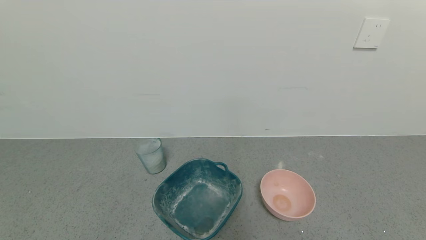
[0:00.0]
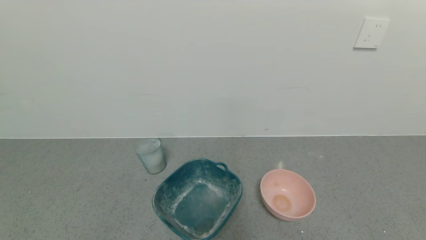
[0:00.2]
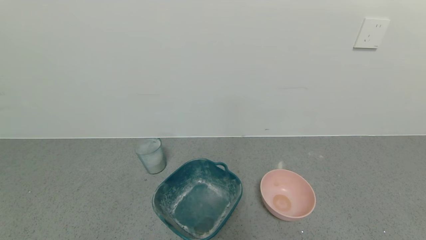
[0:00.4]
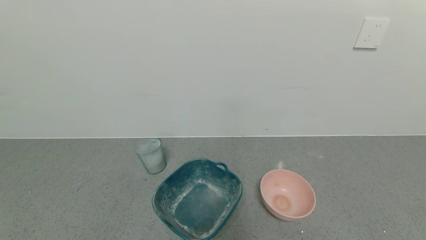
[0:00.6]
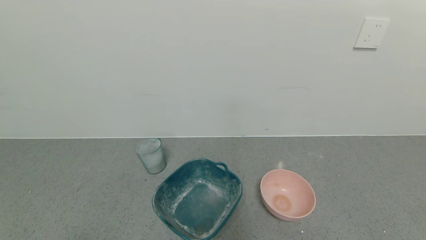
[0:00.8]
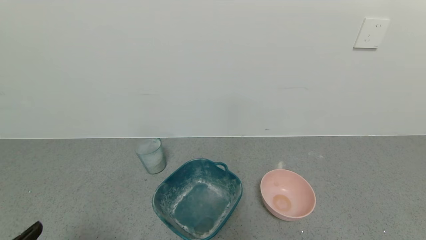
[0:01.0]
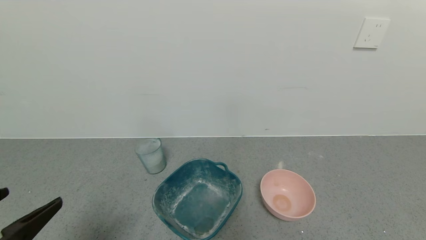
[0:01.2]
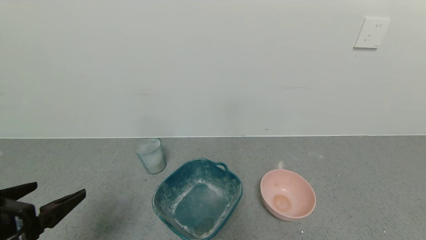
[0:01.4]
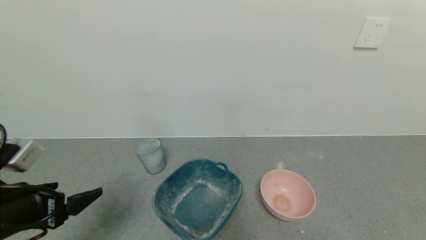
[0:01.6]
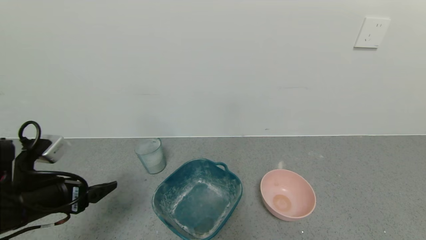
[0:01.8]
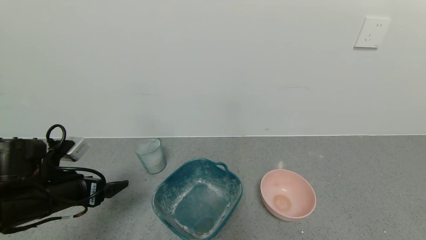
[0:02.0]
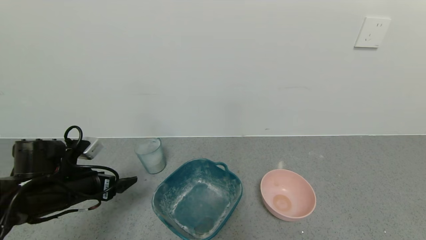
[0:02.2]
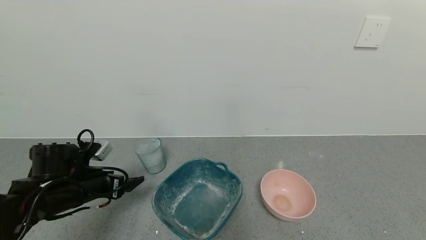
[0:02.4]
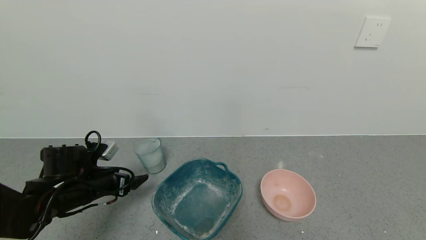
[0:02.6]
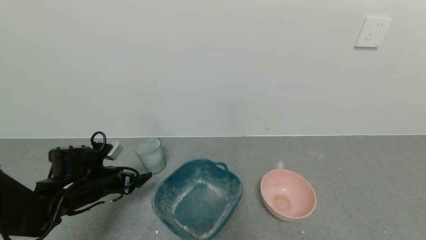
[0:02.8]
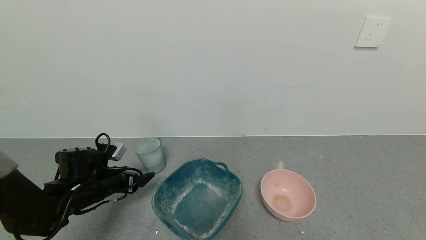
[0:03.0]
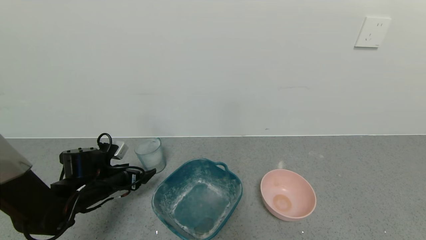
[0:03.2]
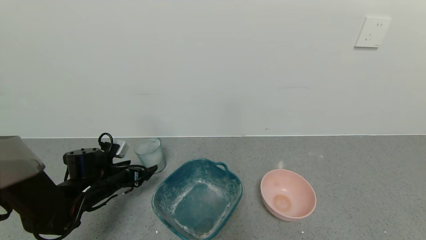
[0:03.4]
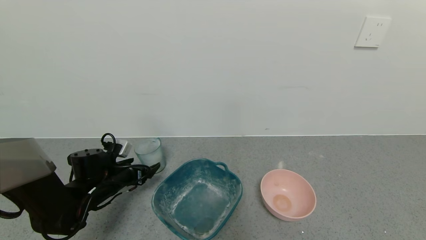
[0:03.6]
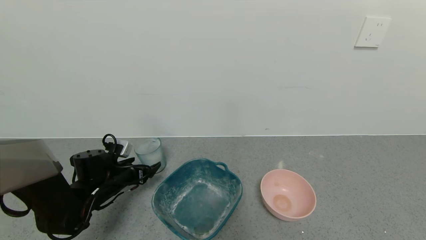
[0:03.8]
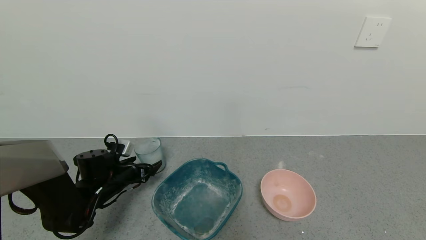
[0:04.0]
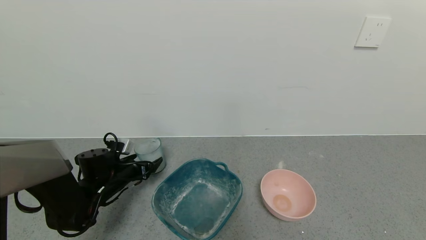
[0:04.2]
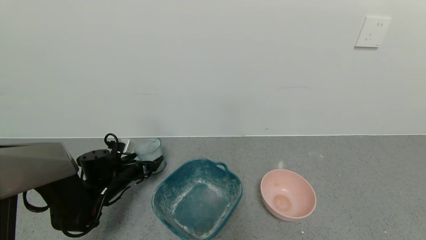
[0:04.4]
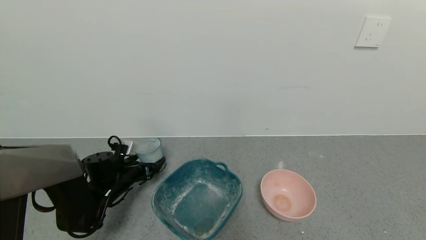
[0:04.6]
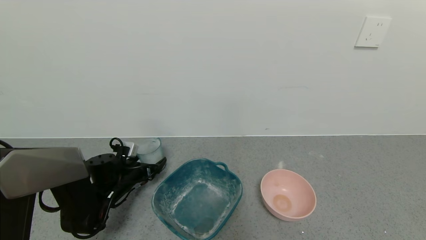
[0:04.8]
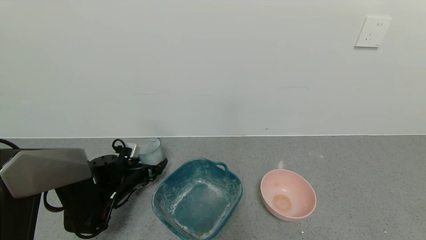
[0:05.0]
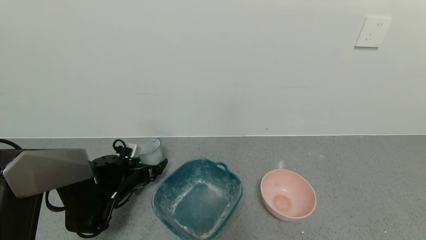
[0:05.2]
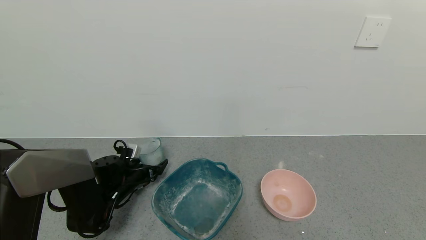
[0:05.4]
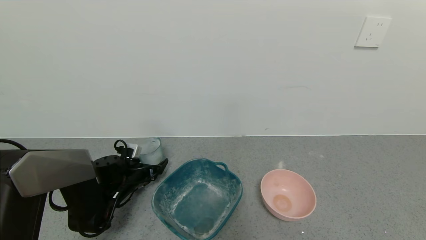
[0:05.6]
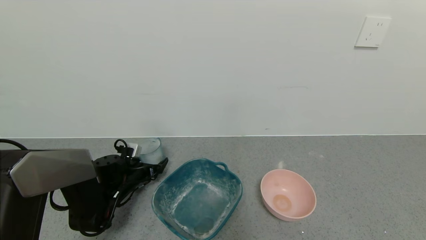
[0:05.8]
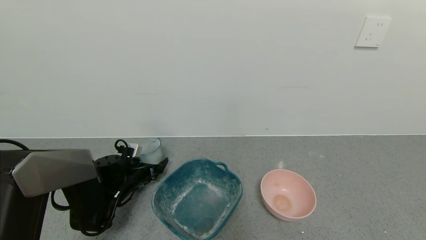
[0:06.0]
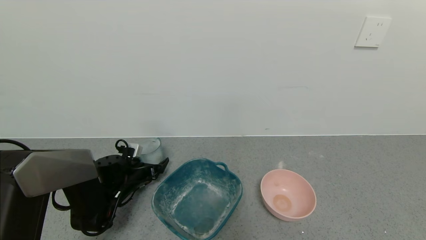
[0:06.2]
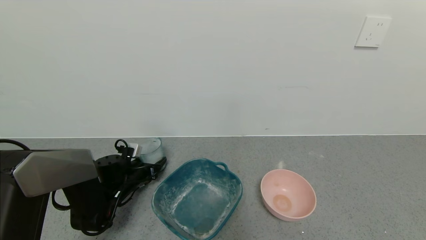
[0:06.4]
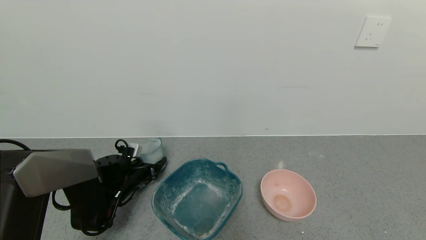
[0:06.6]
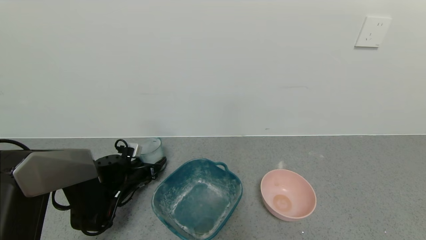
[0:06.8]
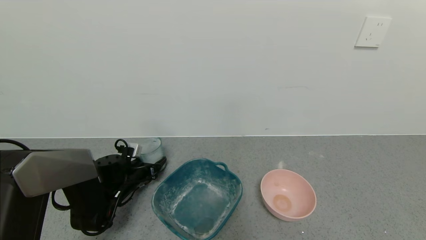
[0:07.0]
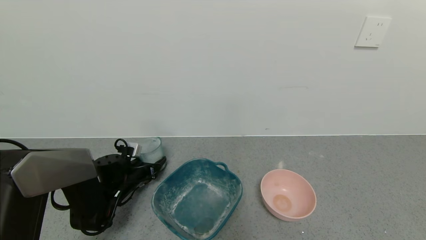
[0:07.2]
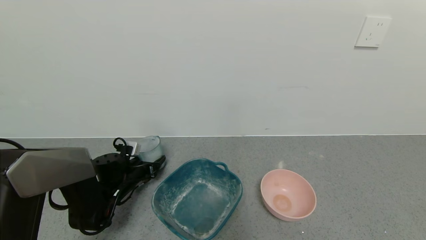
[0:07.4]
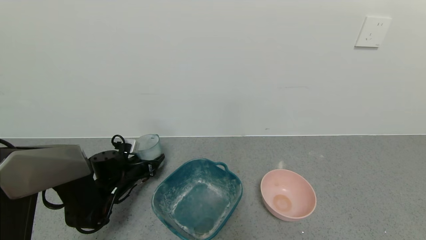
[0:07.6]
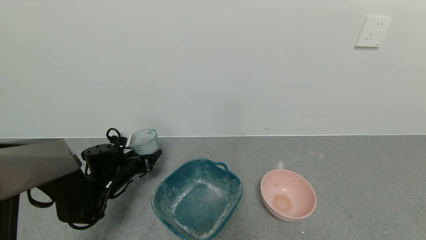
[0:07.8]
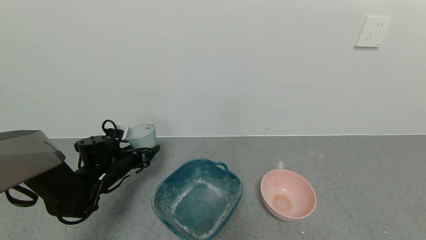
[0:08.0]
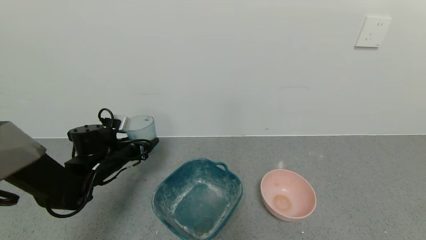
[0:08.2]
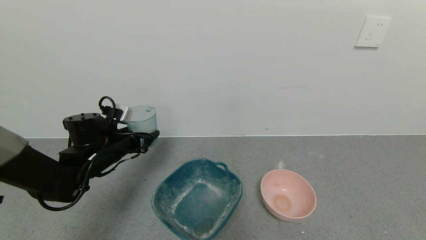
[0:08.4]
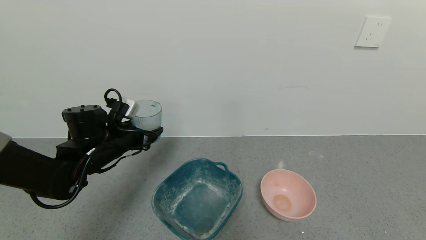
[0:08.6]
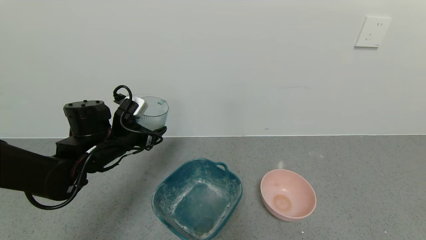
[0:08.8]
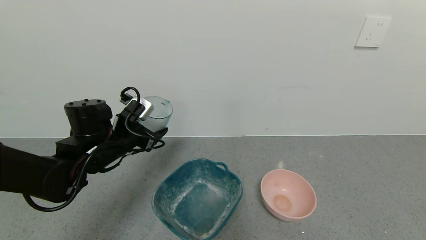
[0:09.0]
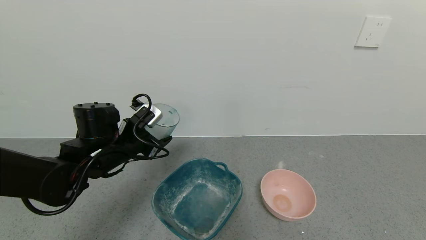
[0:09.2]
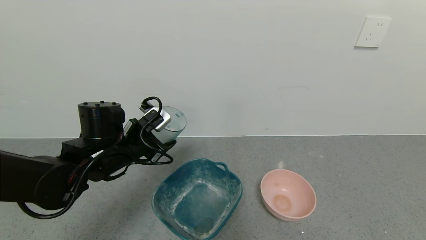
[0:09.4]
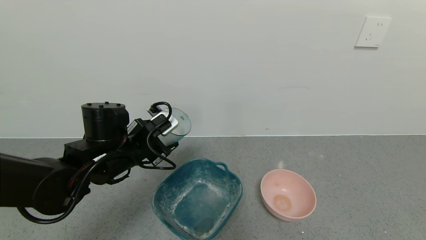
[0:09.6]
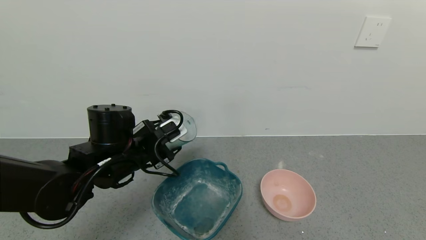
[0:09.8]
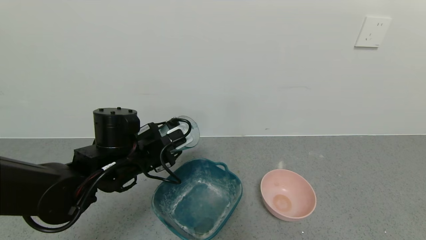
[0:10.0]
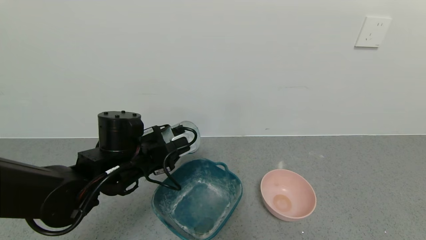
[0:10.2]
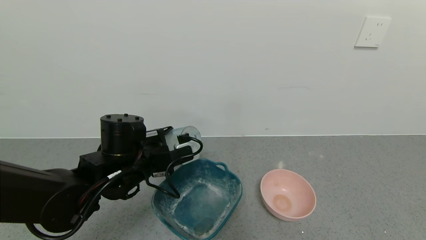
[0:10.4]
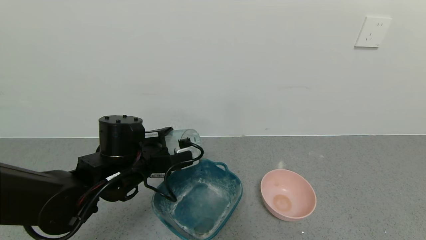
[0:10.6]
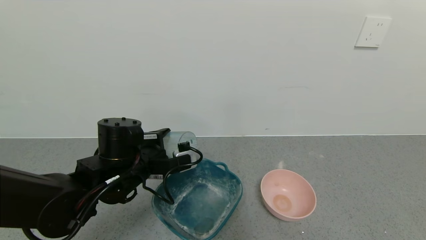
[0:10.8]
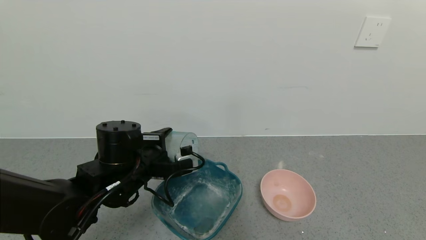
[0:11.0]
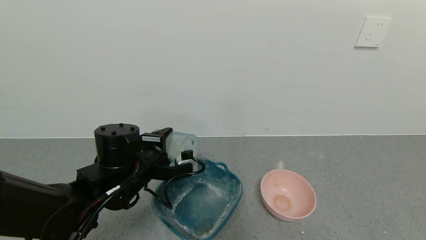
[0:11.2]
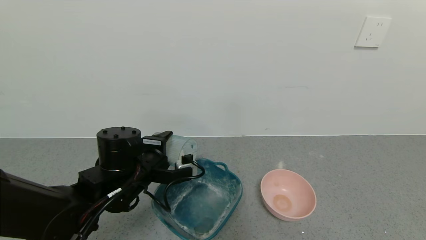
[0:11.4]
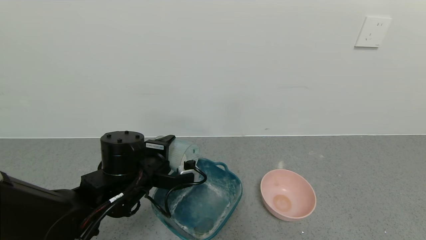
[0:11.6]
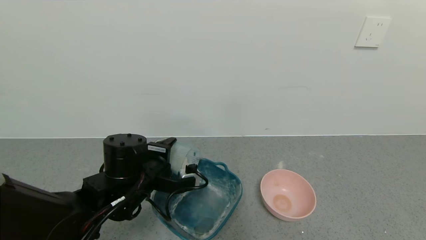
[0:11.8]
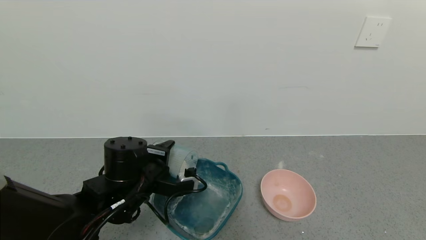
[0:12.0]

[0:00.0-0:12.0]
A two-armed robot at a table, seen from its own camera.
Task of the whole recording: use a gripper to pick up the cup and pour the powder into a bowl or tray.
Step, 0:00.0 to 0:06.4: Grasp the glass of powder with the left gripper.
0:00.0 to 0:01.6: The left gripper heads forward and upward, covering roughly 20 cm.
0:01.6 to 0:03.0: The left gripper is displaced forward and downward by some 20 cm.
0:03.0 to 0:04.4: The left gripper travels forward by some 5 cm.
0:04.4 to 0:06.0: The grippers make only small movements.
0:06.0 to 0:07.6: The left gripper closes up.
0:07.6 to 0:09.0: The left gripper travels upward by approximately 15 cm.
0:09.0 to 0:10.4: The left gripper is displaced to the right by approximately 5 cm.

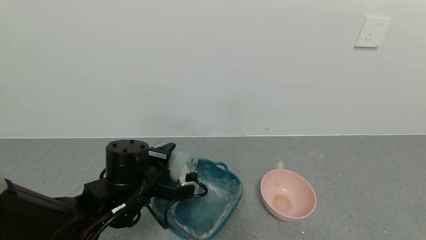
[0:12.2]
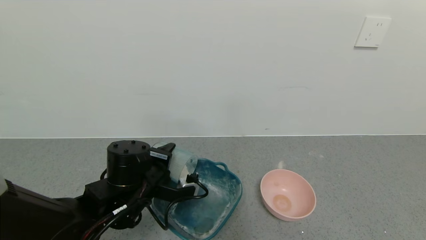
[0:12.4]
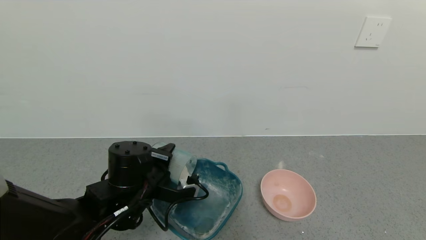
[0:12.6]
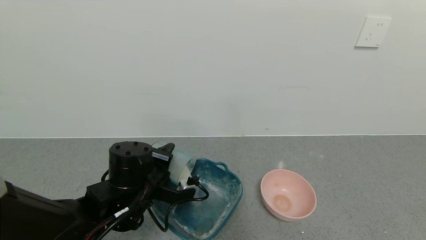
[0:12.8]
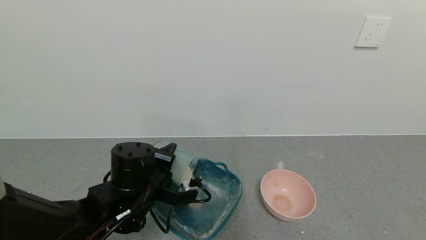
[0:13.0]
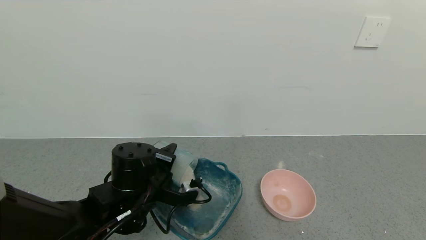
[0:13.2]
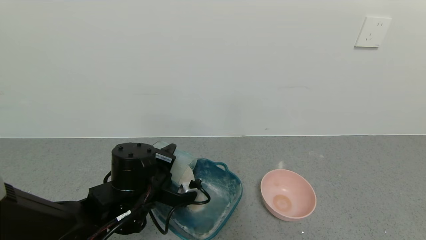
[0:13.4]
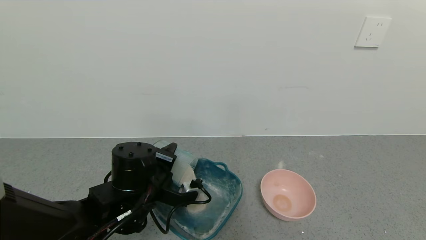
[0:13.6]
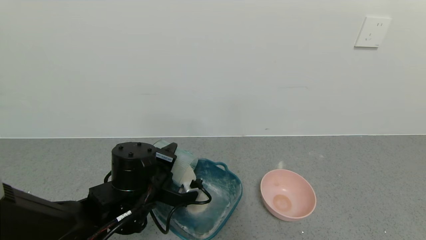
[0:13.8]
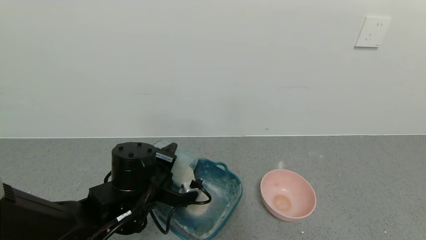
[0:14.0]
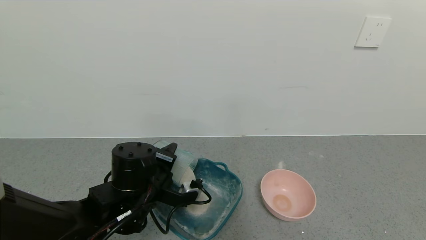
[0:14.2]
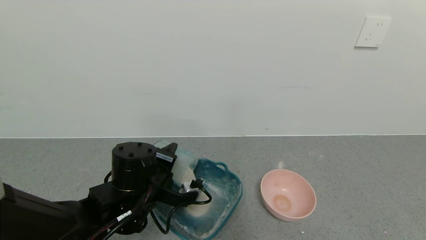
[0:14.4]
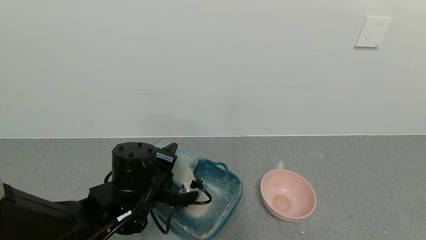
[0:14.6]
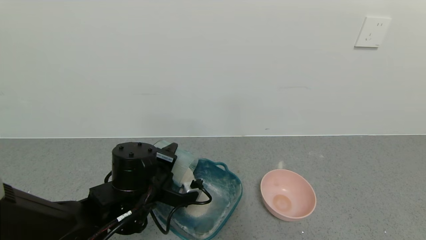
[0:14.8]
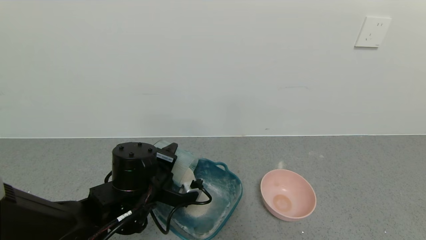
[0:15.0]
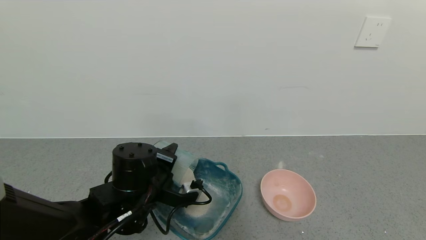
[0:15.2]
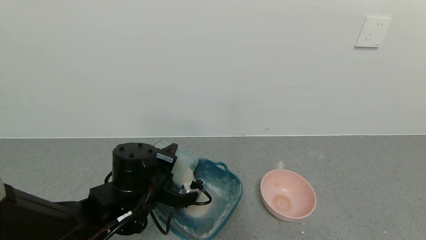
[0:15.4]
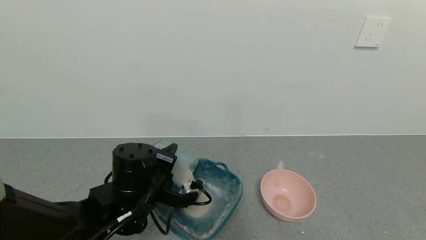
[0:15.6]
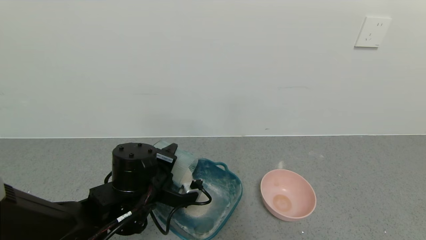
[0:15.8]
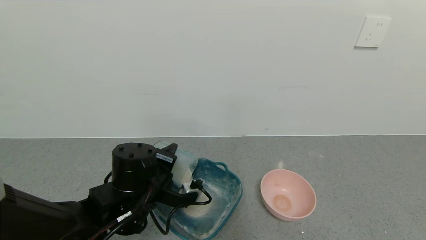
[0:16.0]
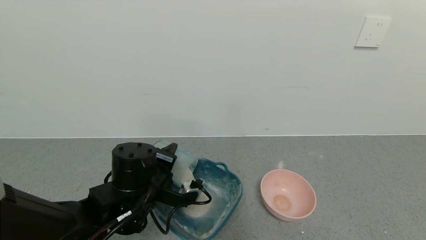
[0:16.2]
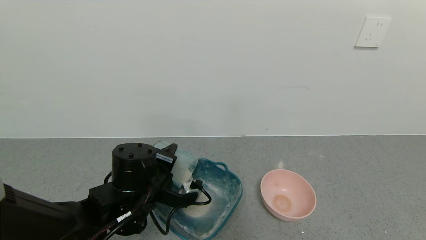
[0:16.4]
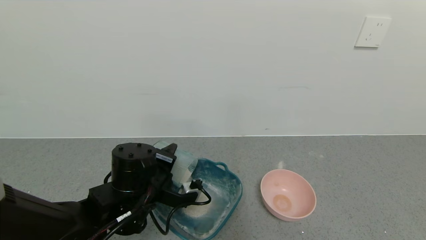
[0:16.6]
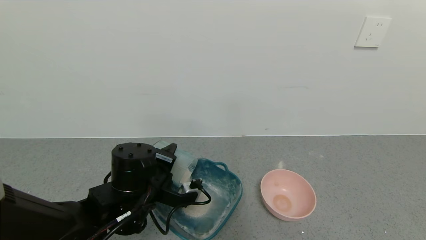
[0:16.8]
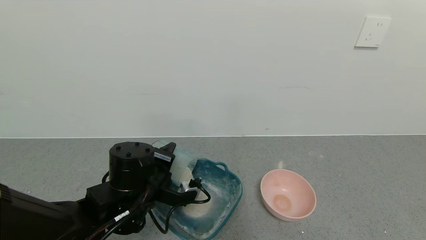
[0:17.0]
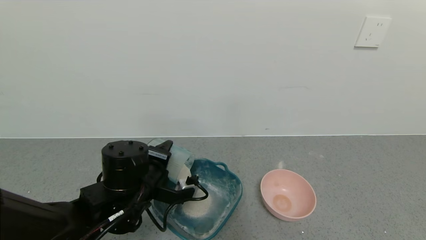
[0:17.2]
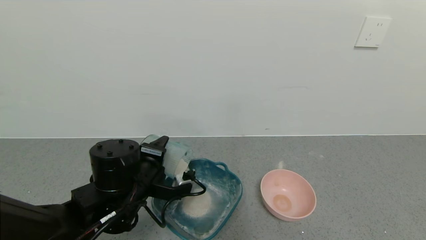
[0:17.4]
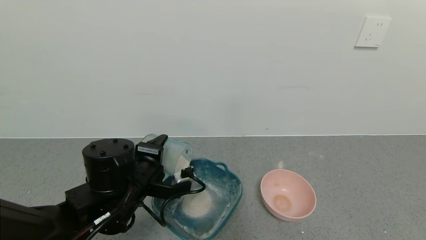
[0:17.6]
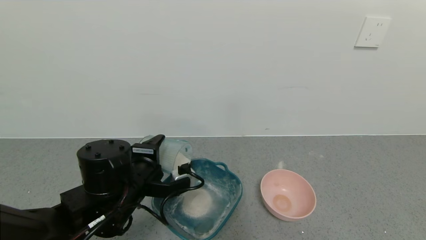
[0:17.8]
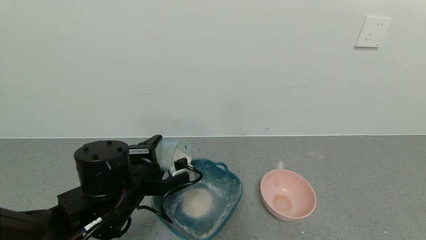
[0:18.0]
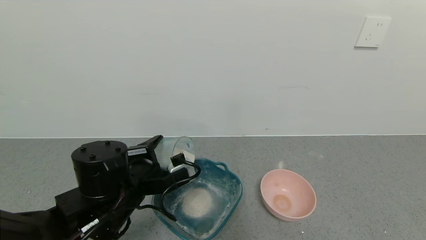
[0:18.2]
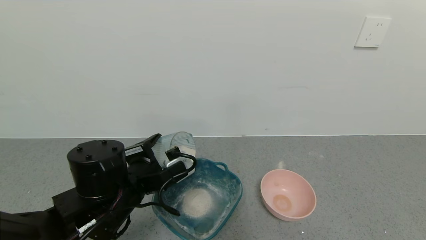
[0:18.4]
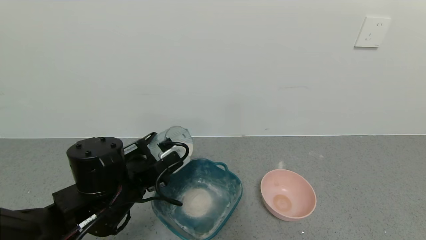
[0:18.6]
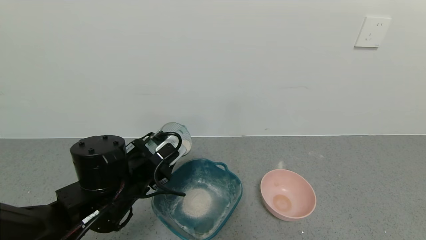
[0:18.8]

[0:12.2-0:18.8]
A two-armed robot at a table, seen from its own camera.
Task of the whole recording: use a gripper to pick up the cup and pour the powder into a bowl or tray.
Step, 0:12.2 to 0:18.4: Pour the powder into the green bowl with the left gripper.
0:12.2 to 0:13.8: The grippers make only small movements.
0:13.8 to 0:17.2: The two grippers keep their place.
